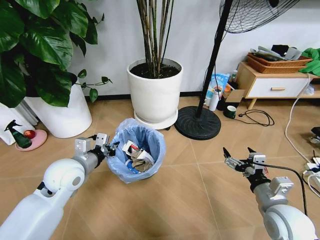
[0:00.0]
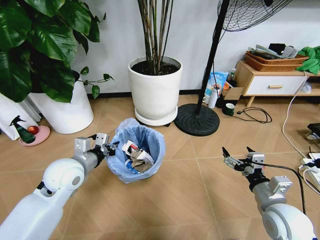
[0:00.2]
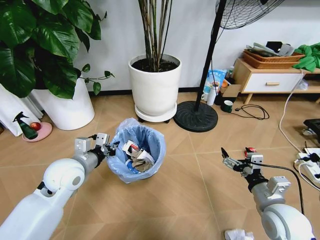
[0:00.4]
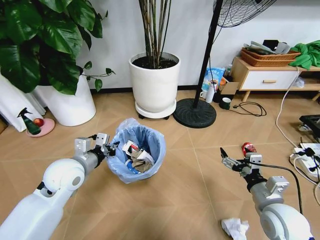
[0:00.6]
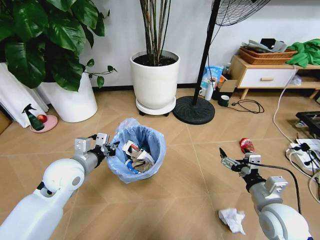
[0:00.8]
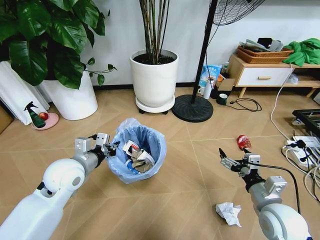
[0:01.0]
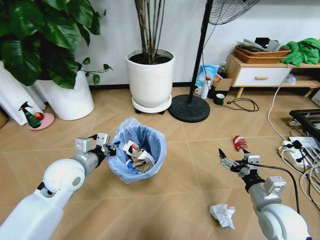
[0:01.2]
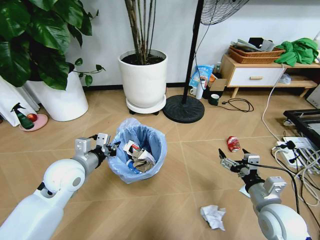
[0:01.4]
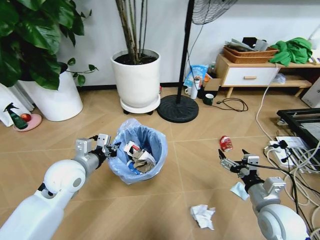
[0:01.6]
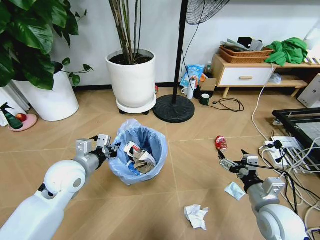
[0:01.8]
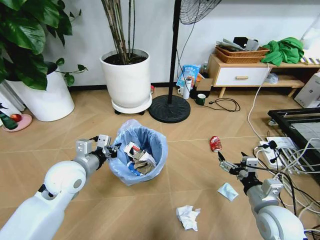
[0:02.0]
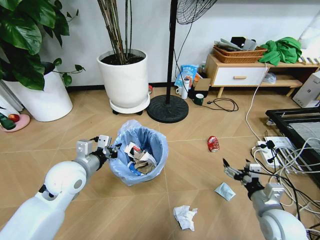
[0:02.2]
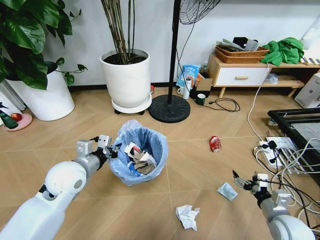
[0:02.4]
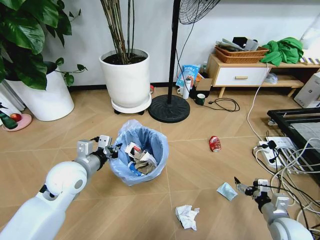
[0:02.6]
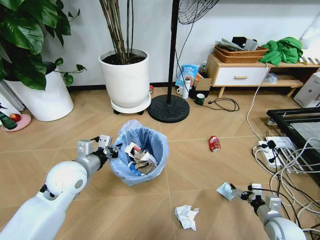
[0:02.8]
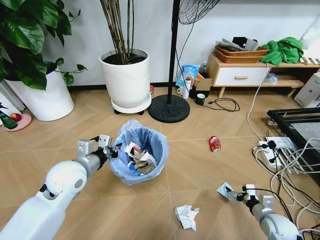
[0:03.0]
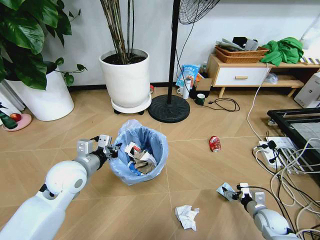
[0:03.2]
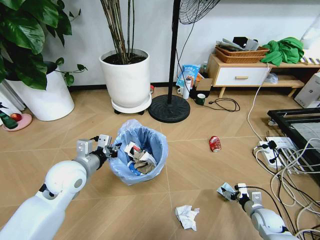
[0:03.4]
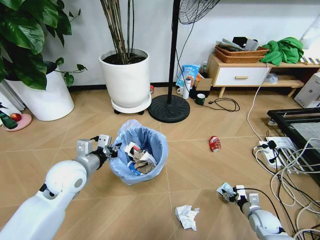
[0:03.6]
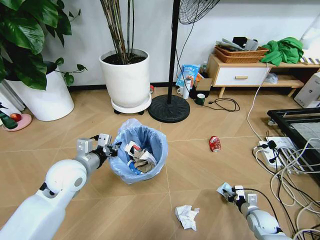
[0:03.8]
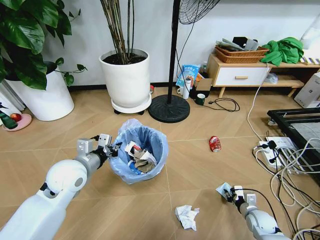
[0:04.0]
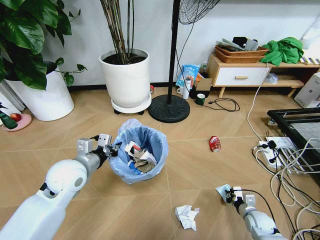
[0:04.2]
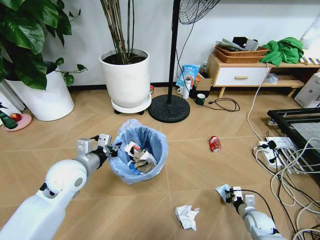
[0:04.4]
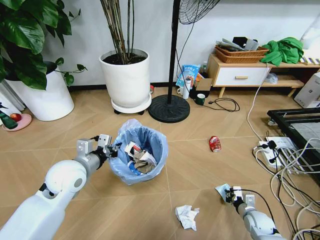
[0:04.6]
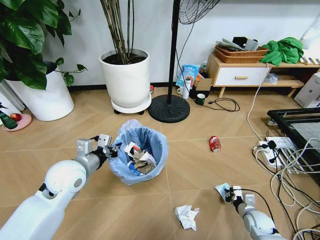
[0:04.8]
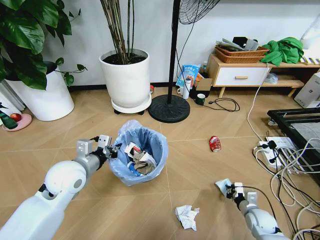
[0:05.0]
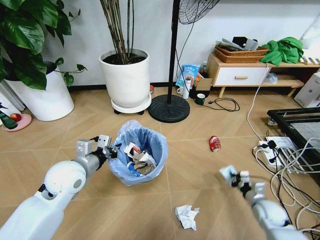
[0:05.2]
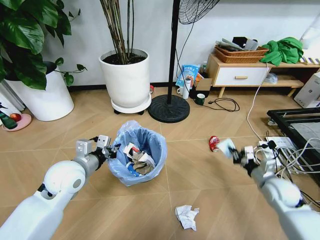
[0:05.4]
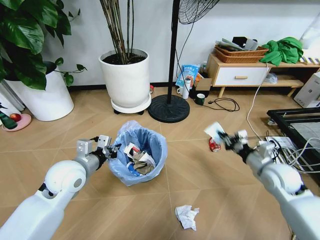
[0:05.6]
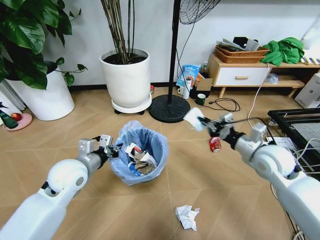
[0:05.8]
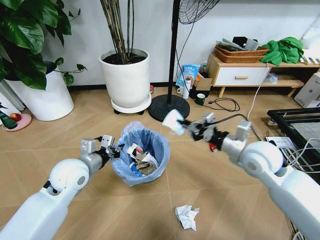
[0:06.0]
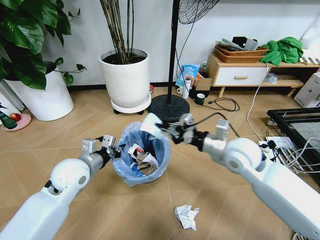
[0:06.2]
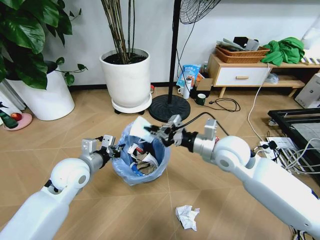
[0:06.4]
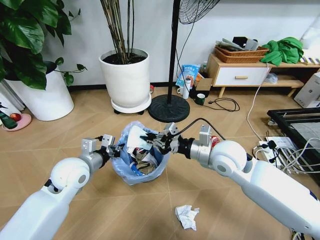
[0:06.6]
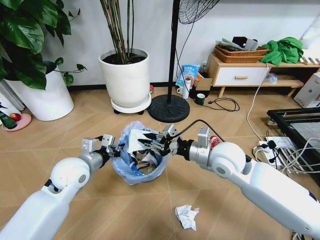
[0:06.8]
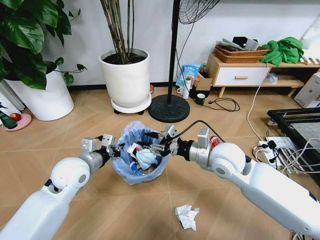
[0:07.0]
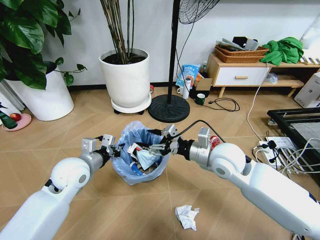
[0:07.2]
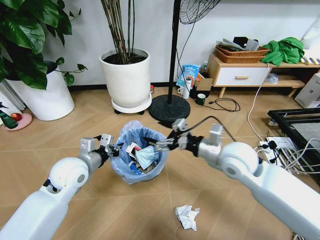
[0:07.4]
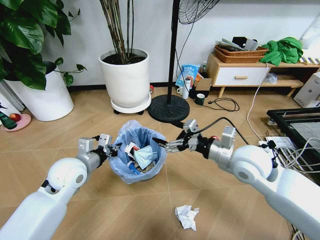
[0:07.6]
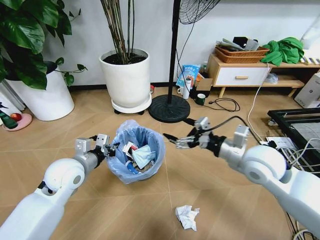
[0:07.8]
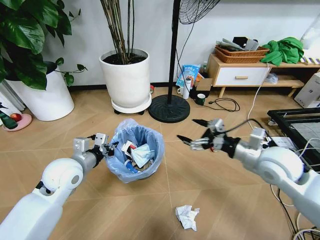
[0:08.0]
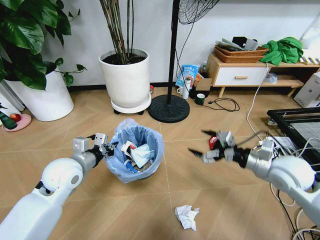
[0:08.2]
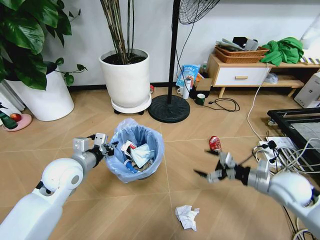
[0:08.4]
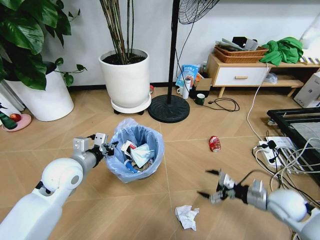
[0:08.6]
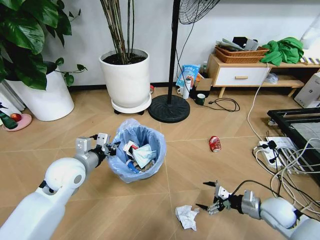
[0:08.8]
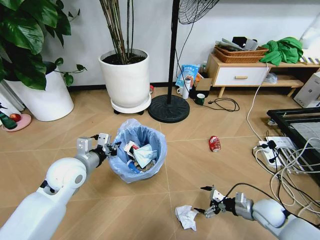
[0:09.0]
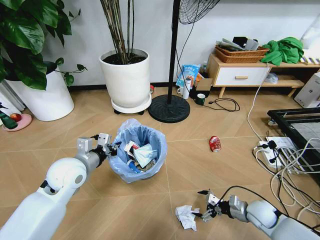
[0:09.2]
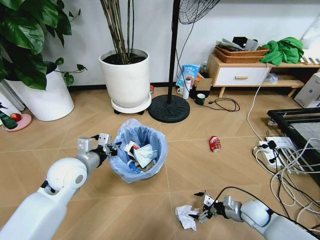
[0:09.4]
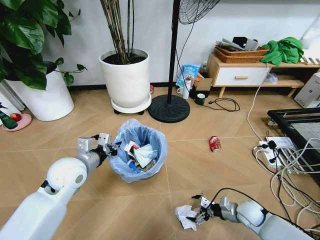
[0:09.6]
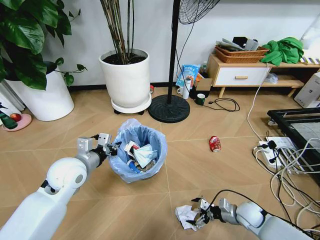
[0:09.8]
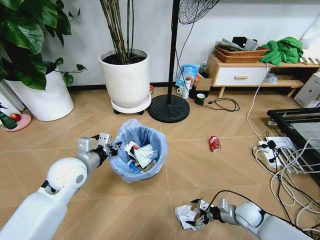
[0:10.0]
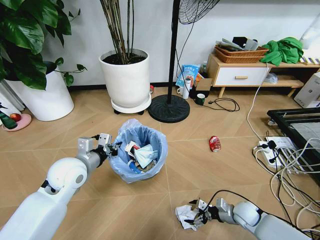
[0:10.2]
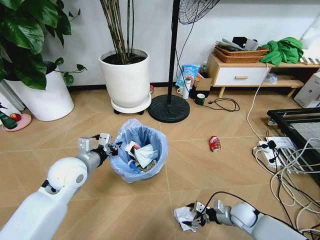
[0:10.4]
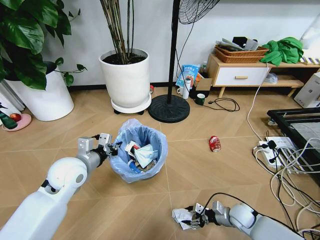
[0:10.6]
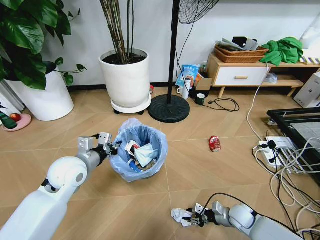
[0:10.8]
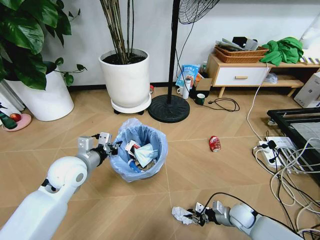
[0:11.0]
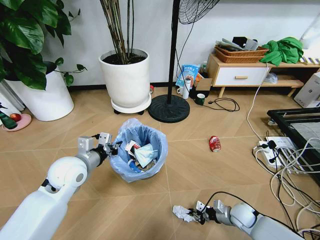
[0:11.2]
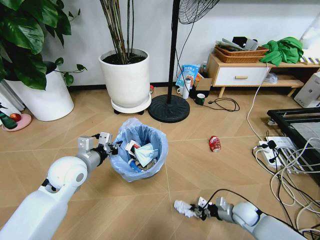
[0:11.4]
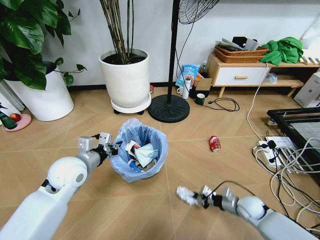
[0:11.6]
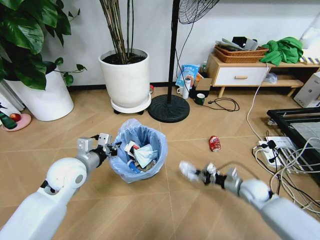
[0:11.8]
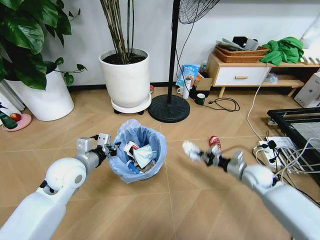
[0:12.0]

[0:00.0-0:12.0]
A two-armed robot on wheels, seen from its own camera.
Task of the whole recording: Pick up the trash bin and place the garbage on the floor into it.
0:01.6 to 0:03.0: The right gripper is displaced downward and to the right by about 20 cm.
0:03.0 to 0:04.4: The right gripper moves downward, roughly 5 cm, and closes.
0:04.4 to 0:06.0: The right gripper is displaced upward by approximately 35 cm.
0:06.0 to 0:07.6: The right gripper opens its fingers.
0:07.6 to 0:09.0: The right gripper moves downward and to the right, approximately 30 cm.
0:09.0 to 0:10.4: The right gripper goes roughly 10 cm downward and to the left.
0:10.4 to 0:12.0: The right gripper heads upward and forward, covering roughly 15 cm, and closes its fingers.

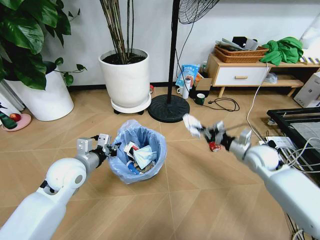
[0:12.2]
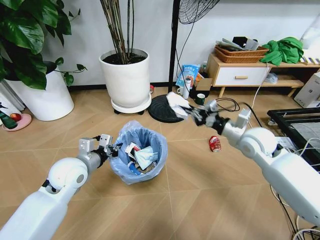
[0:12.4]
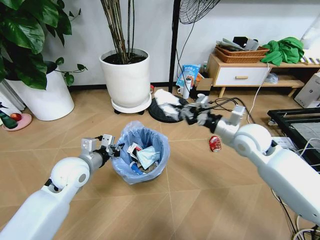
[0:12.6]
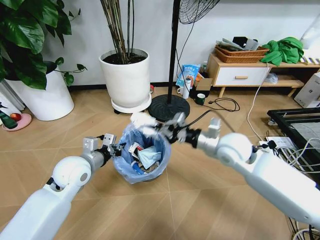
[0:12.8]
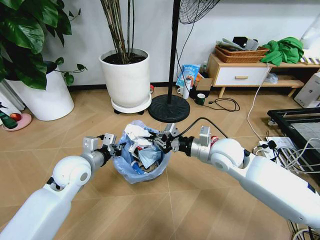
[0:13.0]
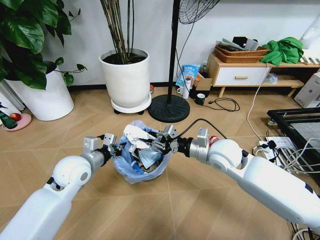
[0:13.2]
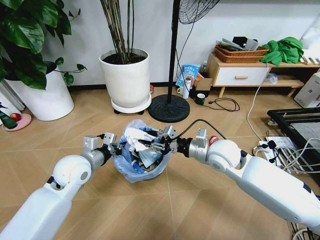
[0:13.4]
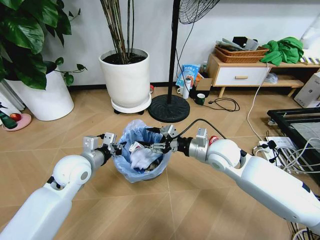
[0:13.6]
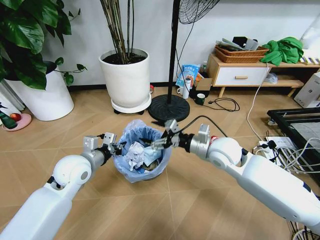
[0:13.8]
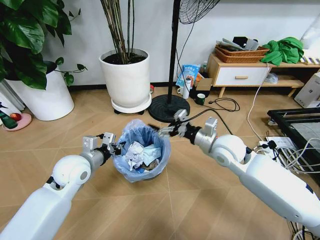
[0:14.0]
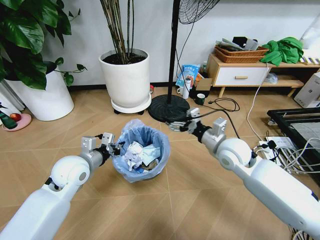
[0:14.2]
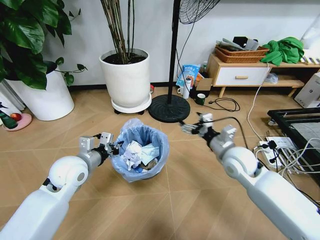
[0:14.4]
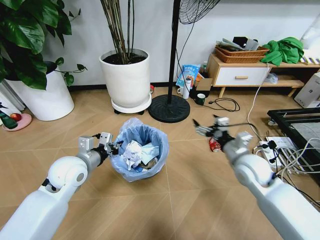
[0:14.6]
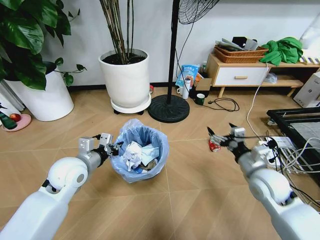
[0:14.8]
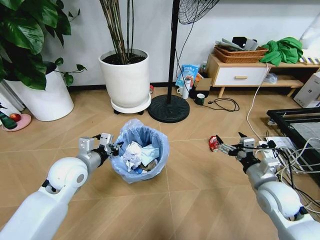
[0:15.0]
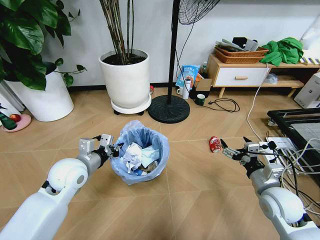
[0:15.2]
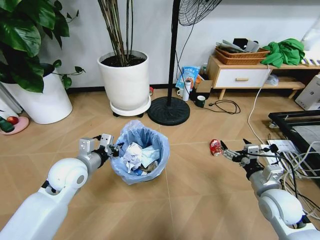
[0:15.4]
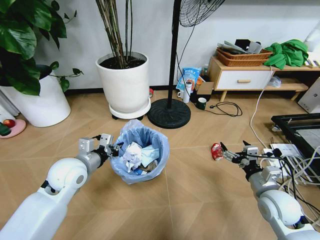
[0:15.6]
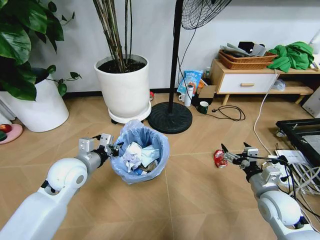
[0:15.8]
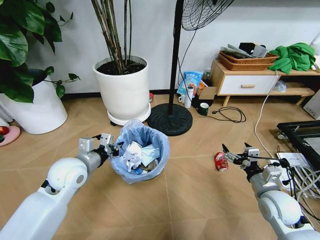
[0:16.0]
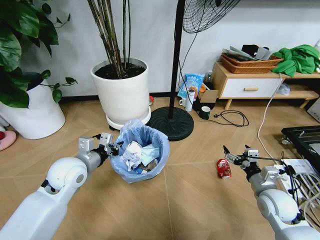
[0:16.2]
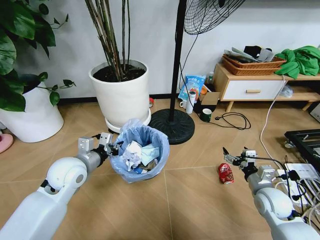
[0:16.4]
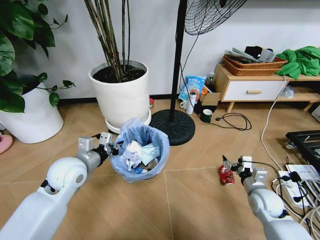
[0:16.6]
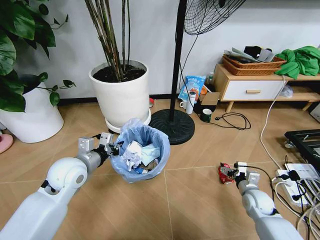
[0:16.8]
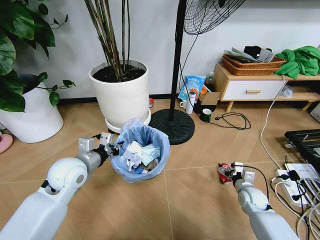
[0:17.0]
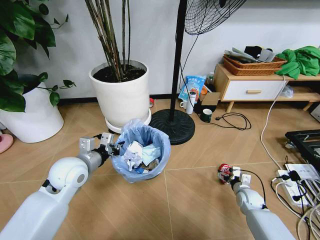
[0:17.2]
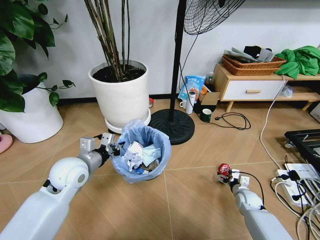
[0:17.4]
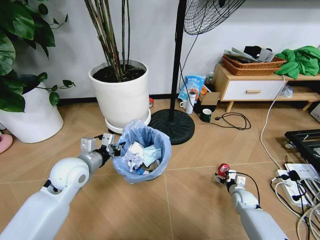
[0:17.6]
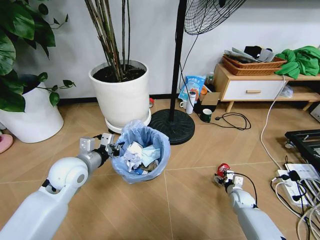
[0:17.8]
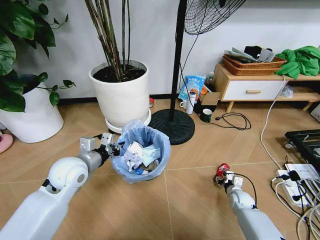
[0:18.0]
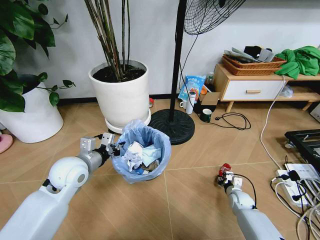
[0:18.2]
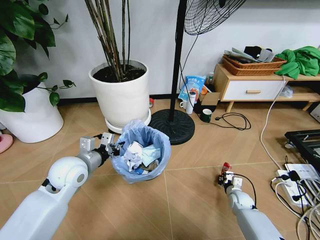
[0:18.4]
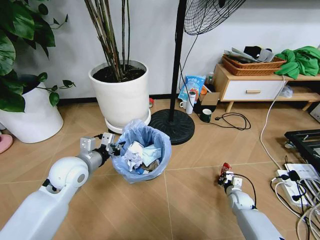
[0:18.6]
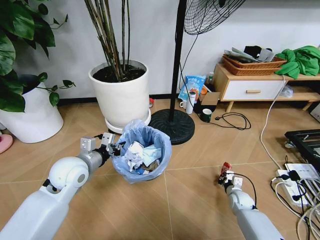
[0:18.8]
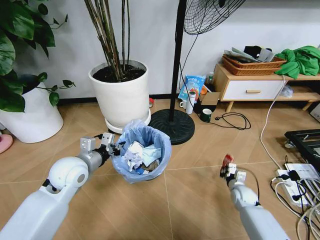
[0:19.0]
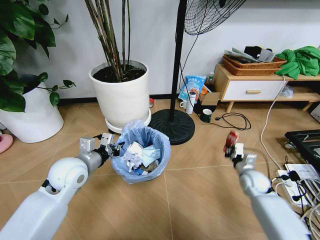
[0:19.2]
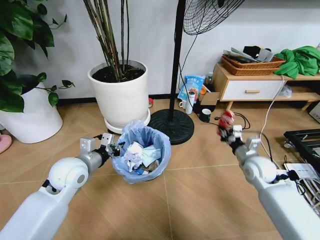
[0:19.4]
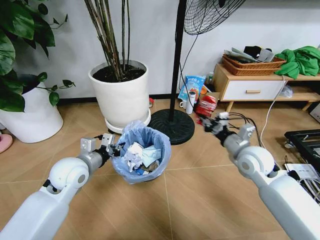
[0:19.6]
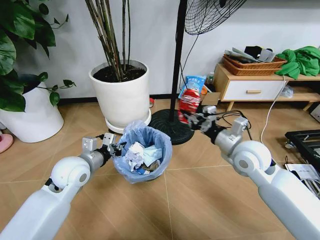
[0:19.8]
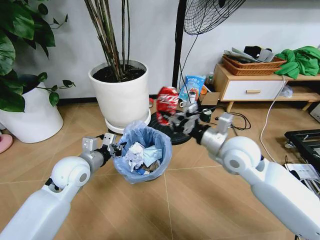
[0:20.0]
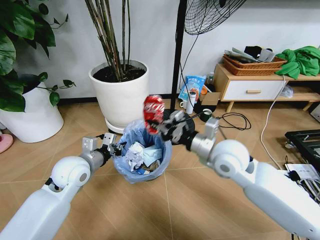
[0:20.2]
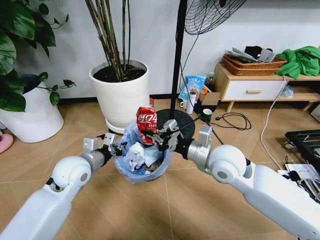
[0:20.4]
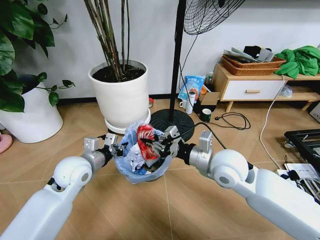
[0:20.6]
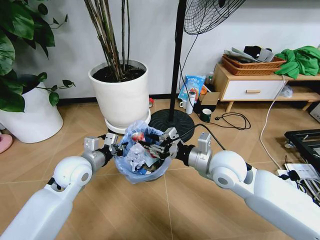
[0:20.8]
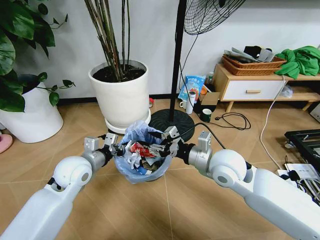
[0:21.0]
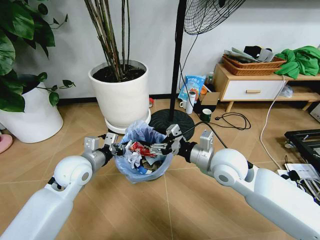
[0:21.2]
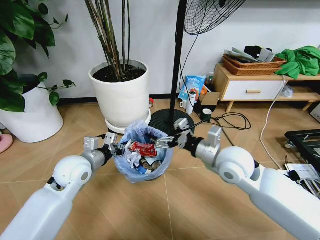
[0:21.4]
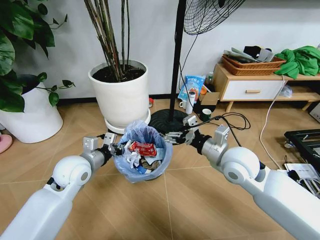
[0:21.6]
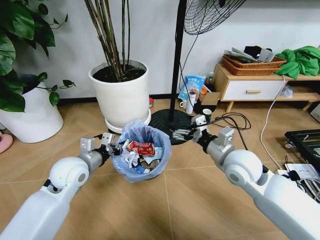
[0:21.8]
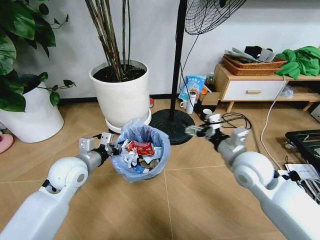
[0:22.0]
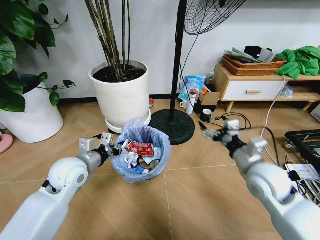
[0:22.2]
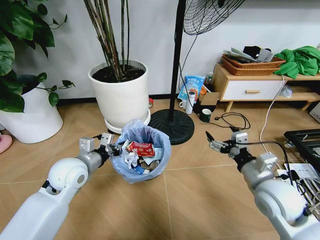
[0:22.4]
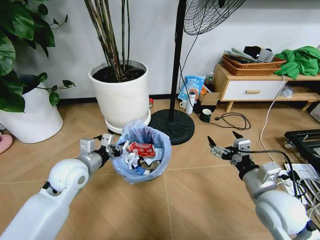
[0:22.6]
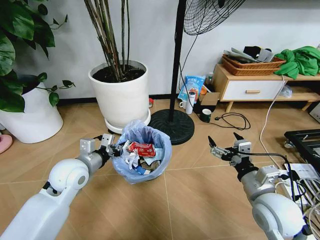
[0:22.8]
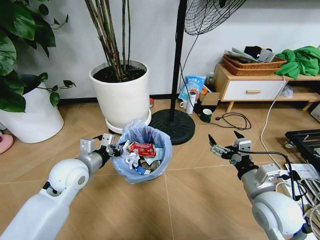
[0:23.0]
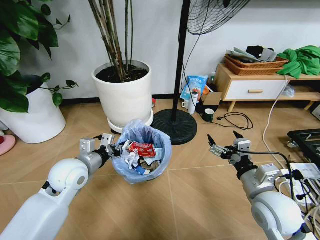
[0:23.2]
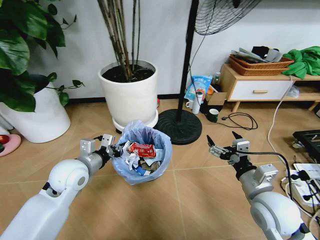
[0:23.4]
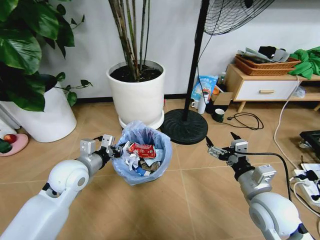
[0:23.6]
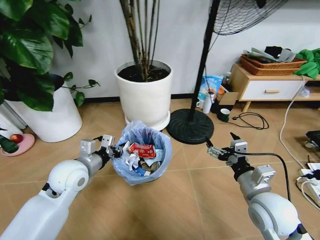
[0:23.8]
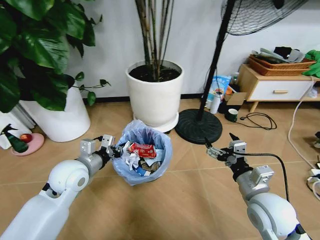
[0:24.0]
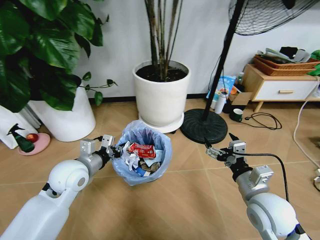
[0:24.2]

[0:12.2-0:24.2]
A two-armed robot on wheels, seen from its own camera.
Task of the whole recording: Pick up the trash bin and place the garbage on the floor into it.
0:12.2 to 0:13.8: The right gripper moves to the left and upward, some 20 cm, and opens up.
0:13.8 to 0:15.2: The right gripper travels to the right, backward and downward by some 20 cm.
0:15.2 to 0:16.6: The right gripper goes approximately 10 cm downward.
0:16.6 to 0:18.2: The right gripper shifts about 15 cm downward, and closes up.
0:18.2 to 0:19.8: The right gripper goes approximately 35 cm upward.
0:19.8 to 0:21.2: The right gripper shifts roughly 5 cm to the left, and opens its fingers.
0:21.2 to 0:22.6: The right gripper goes roughly 15 cm to the right and backward.
